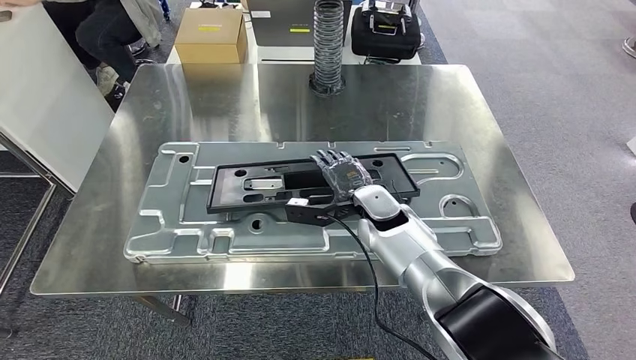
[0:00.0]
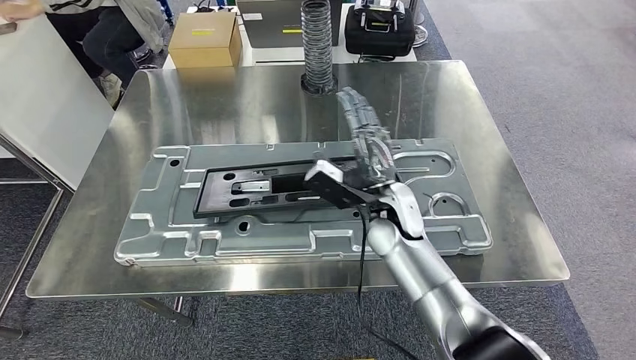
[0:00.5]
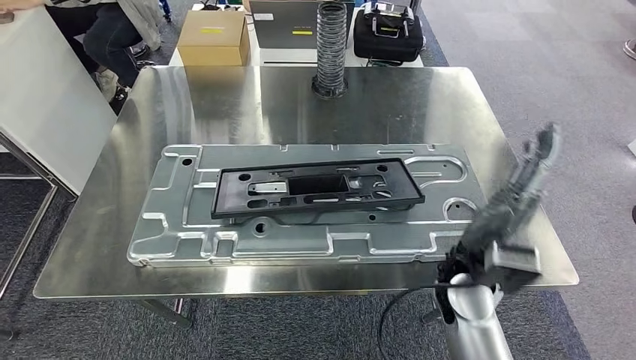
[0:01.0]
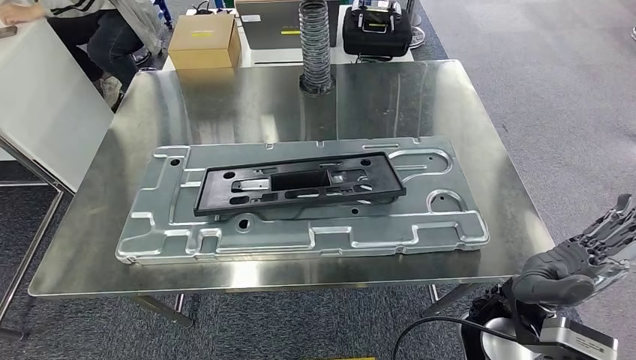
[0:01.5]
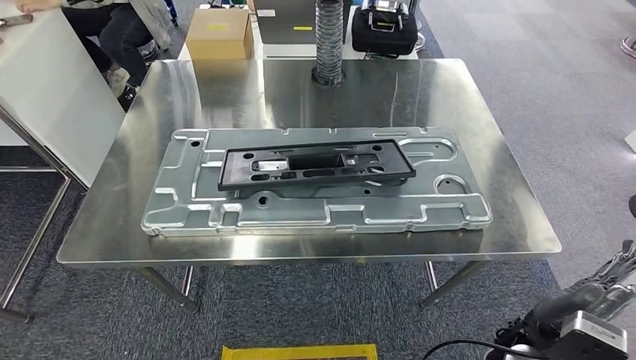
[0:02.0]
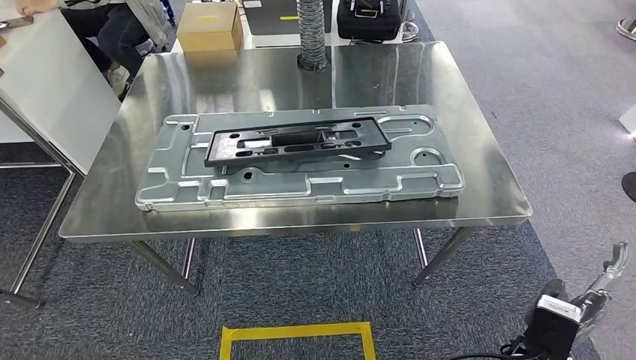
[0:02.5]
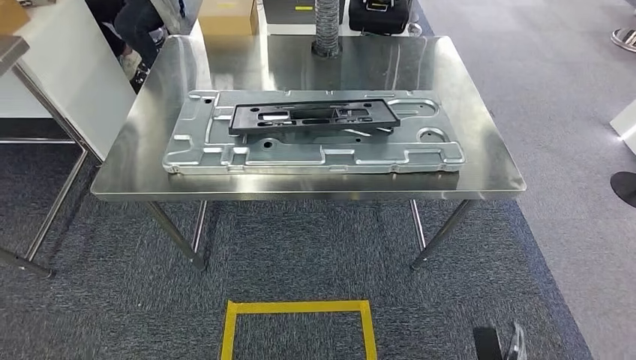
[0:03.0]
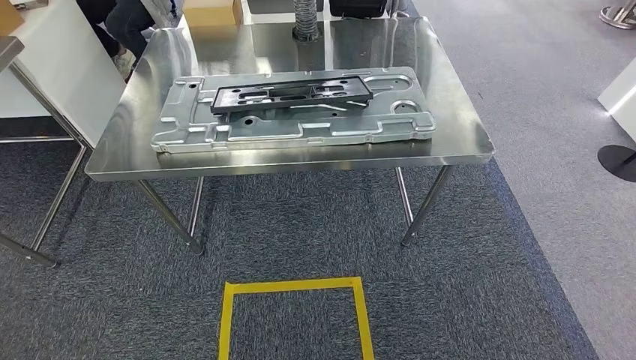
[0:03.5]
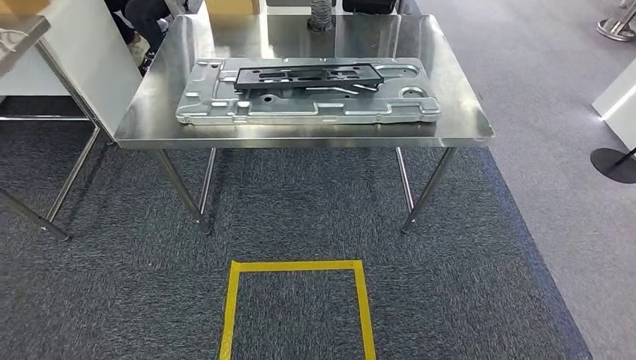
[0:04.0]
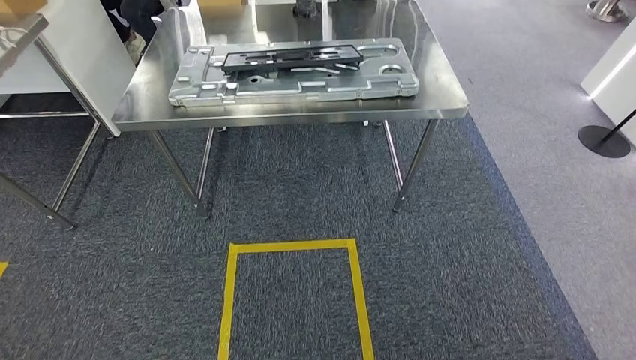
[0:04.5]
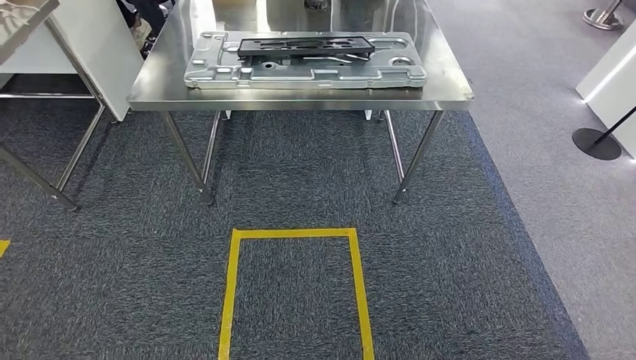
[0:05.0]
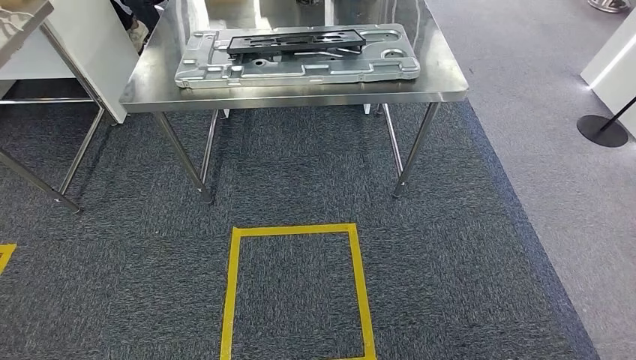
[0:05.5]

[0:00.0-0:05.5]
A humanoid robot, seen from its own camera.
Step, 0:00.0 to 0:02.0: Insert the small parts into the corresponding holes on the workbench.
Step, 0:02.5 to 0:05.5: Move to the initial position of the workbench.
